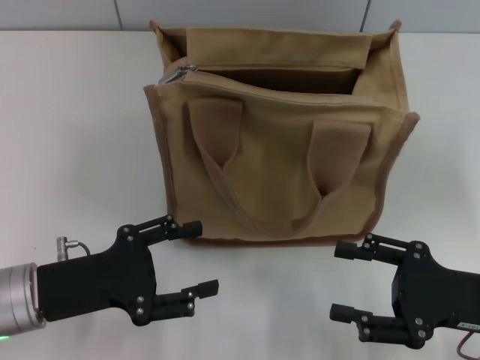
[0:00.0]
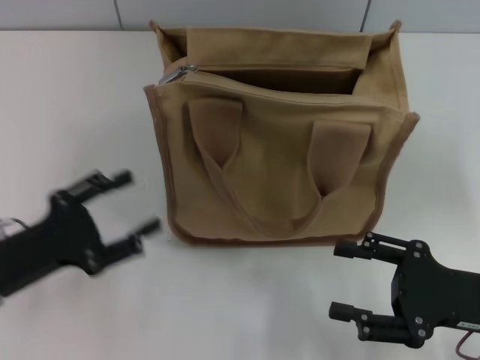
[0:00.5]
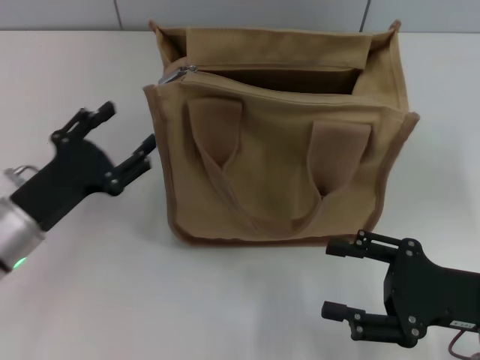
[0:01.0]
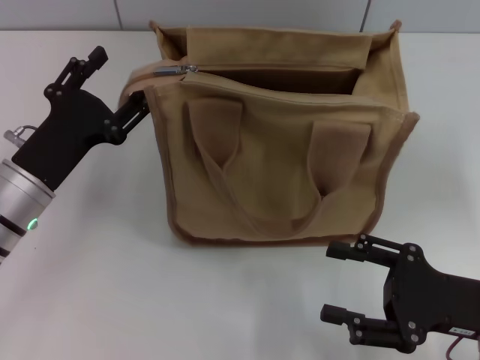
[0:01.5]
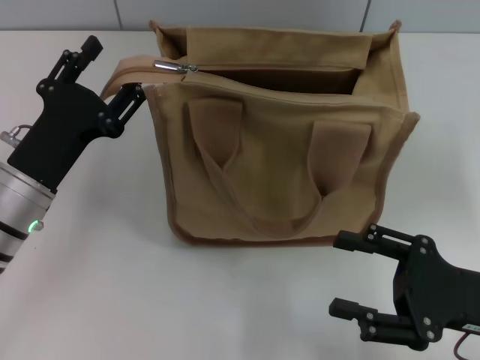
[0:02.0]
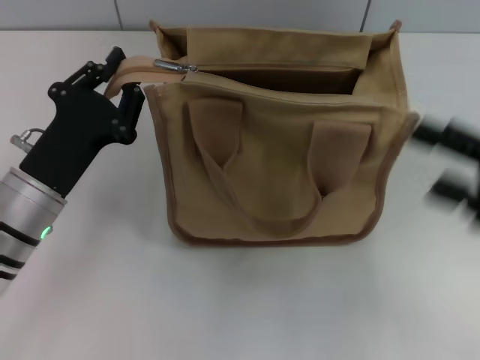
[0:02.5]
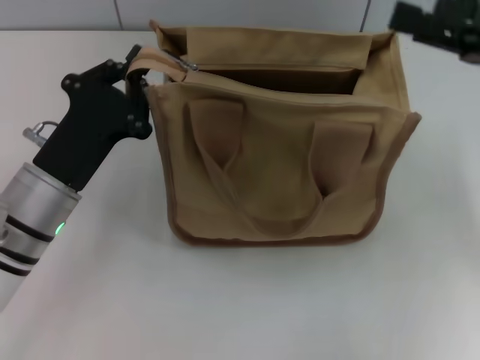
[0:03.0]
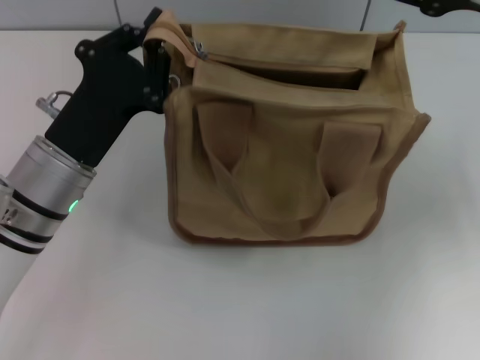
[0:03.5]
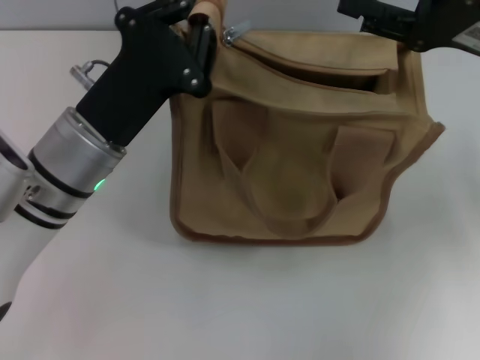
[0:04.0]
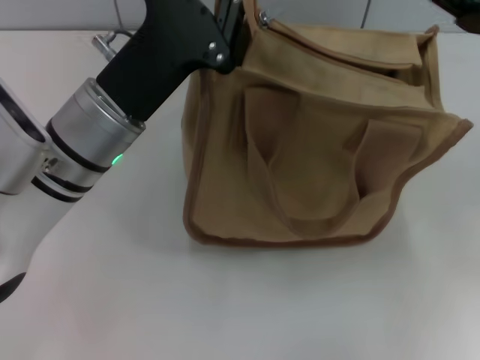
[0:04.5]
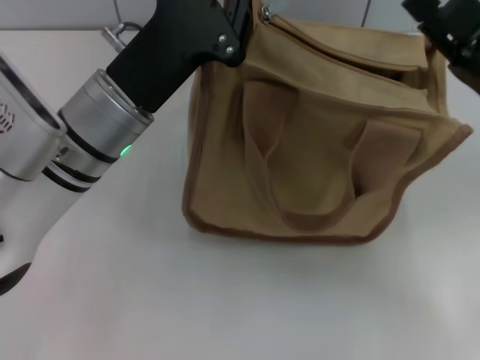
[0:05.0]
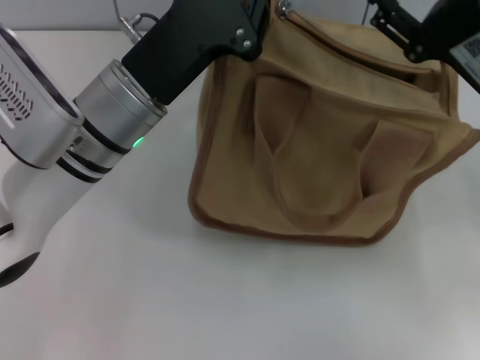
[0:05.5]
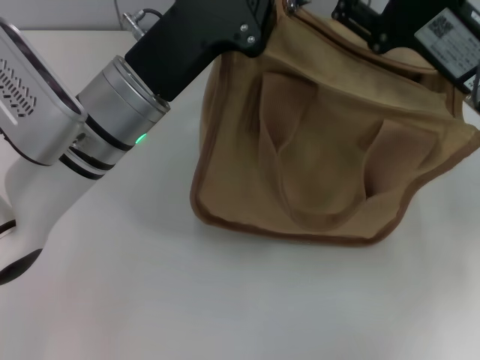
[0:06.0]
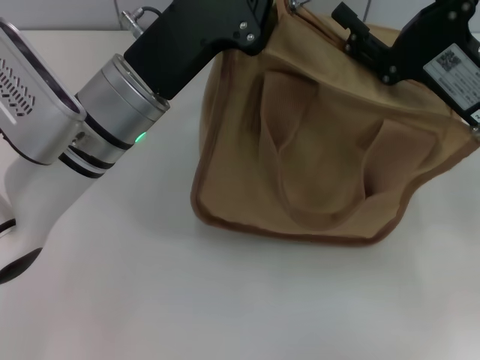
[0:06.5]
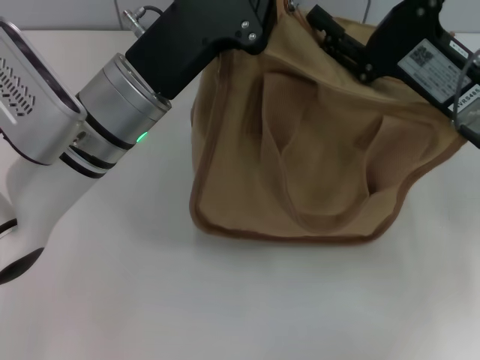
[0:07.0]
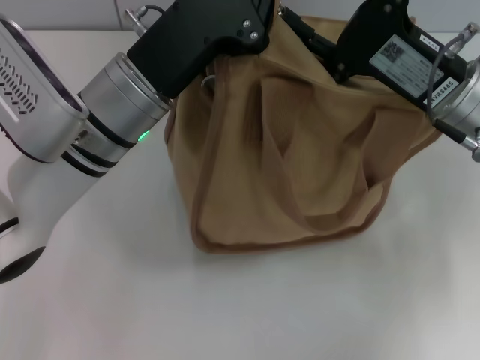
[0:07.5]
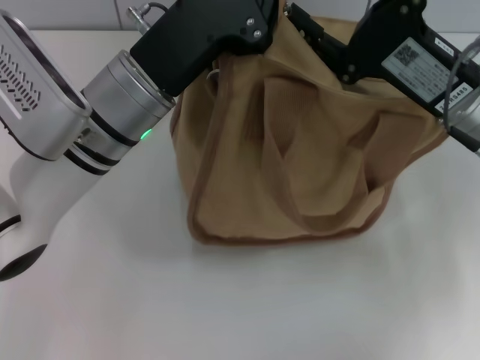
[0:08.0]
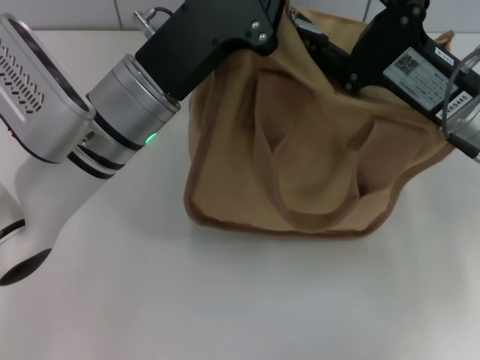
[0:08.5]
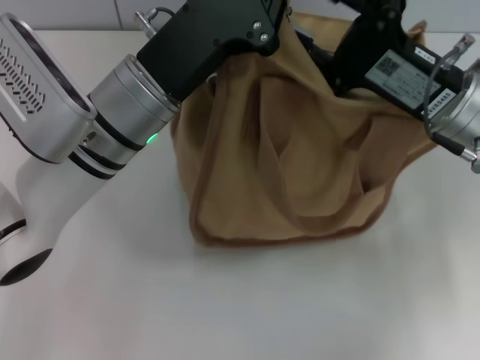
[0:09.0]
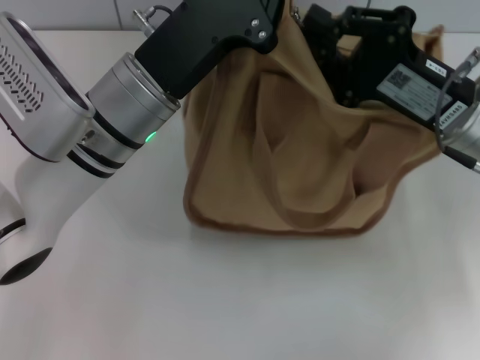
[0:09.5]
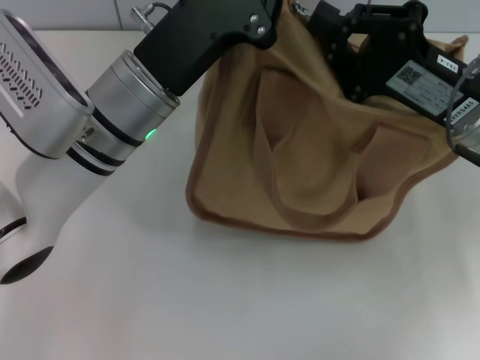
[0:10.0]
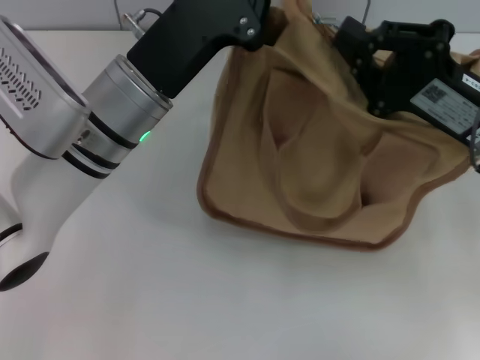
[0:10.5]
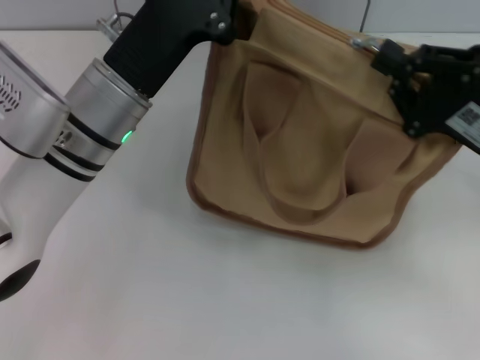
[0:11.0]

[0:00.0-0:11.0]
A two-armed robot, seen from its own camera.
0:00.0 to 0:02.0: The left gripper goes roughly 5 cm forward.
0:02.0 to 0:03.5: The left gripper changes place by roughly 5 cm, and closes up. The right gripper goes some 20 cm forward and upward.
0:03.5 to 0:05.5: The right gripper heads downward, covering approximately 10 cm; the left gripper moves to the right, roughly 5 cm.
0:07.5 to 0:09.0: There are only small adjustments of the grippers.
0:09.0 to 0:11.0: The right gripper moves to the right, some 5 cm, and closes.

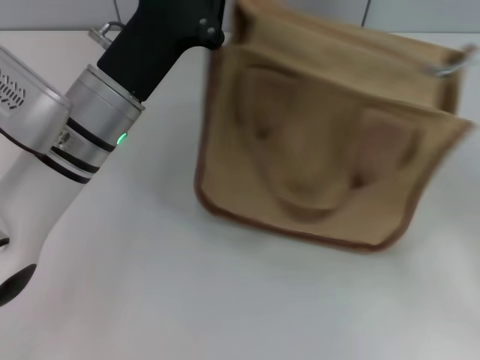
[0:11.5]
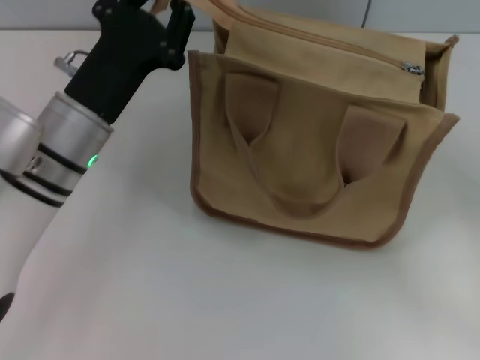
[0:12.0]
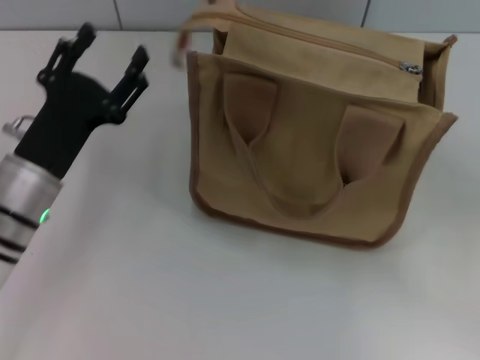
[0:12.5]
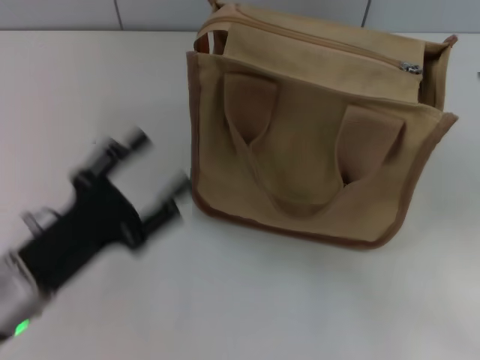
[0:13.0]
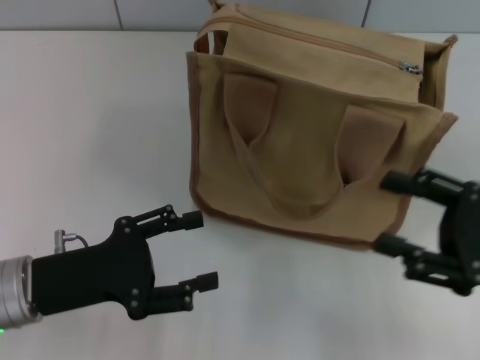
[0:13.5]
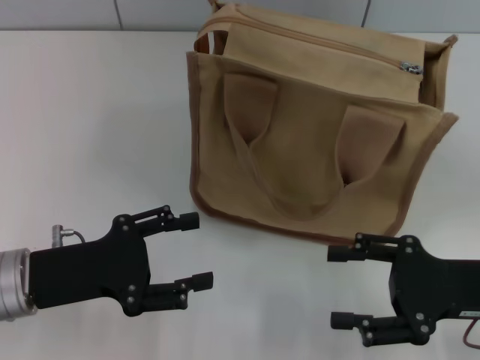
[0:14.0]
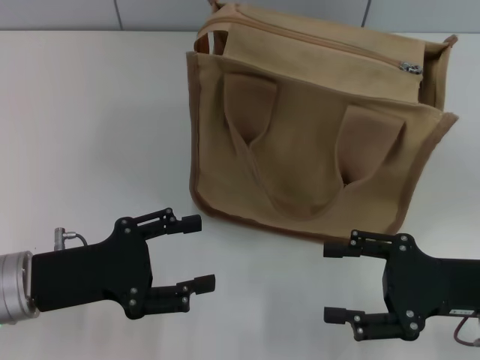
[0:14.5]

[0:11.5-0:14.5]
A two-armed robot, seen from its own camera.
Step, 0:11.5 to 0:12.0: Grab the zipper with your left hand.
0:11.5 to 0:13.0: The right gripper opens up, while the left gripper is displaced backward, to the left and downward by roughly 15 cm, and opens its fingers.
0:13.0 to 0:14.5: The right gripper ends up some 5 cm from where it was.
